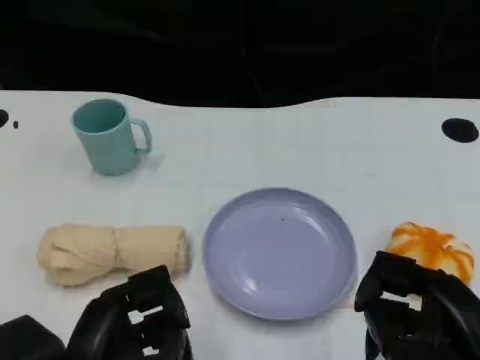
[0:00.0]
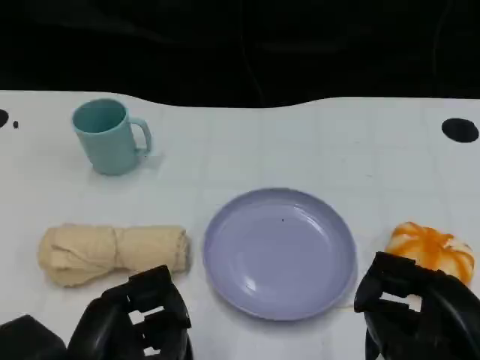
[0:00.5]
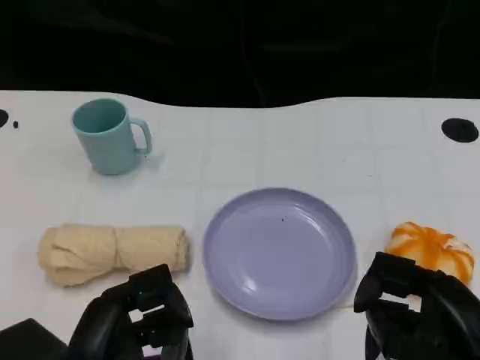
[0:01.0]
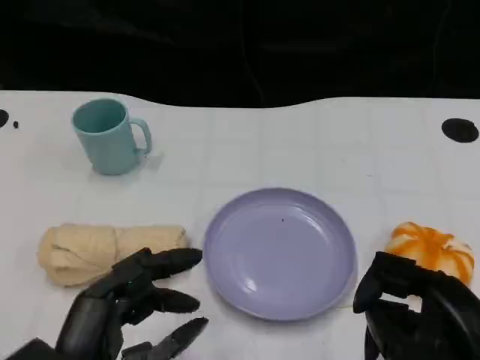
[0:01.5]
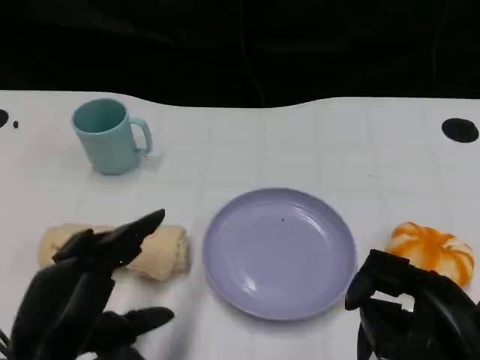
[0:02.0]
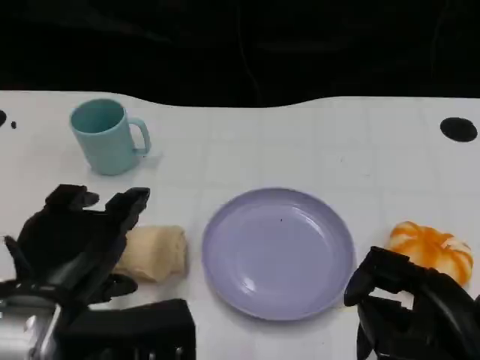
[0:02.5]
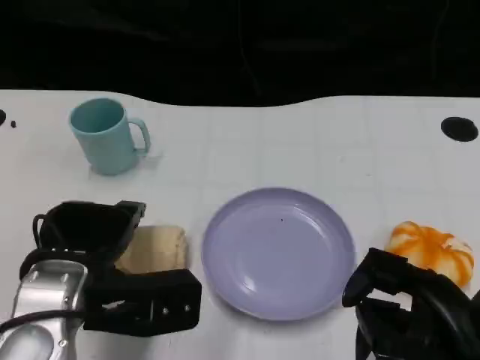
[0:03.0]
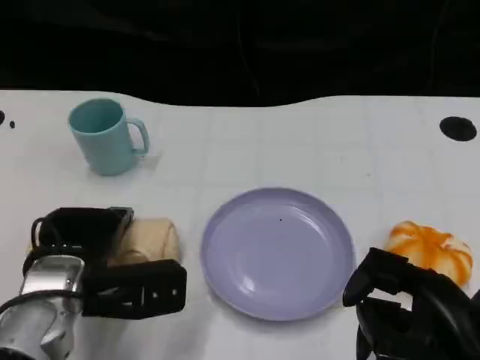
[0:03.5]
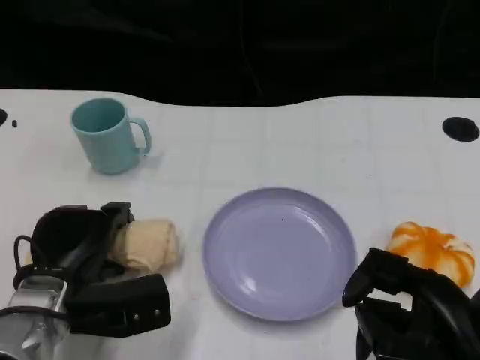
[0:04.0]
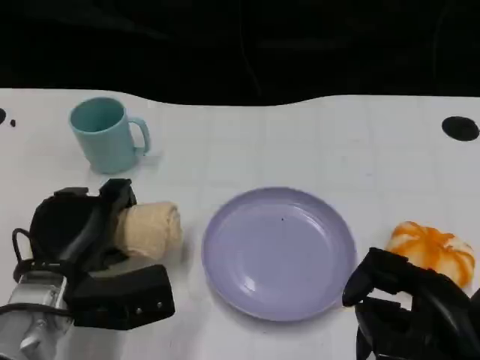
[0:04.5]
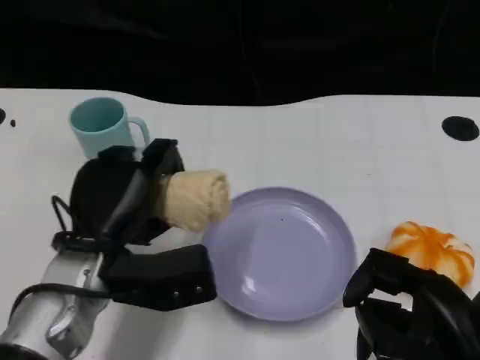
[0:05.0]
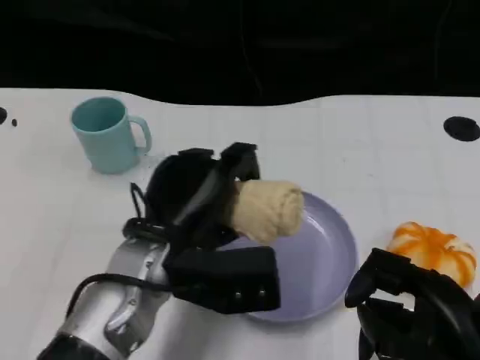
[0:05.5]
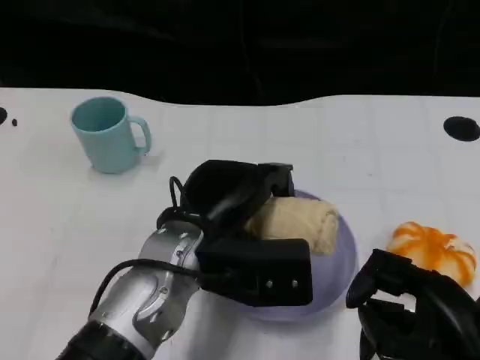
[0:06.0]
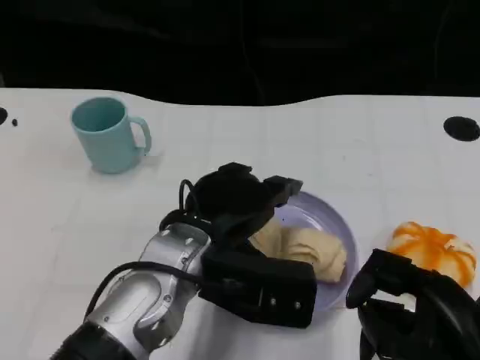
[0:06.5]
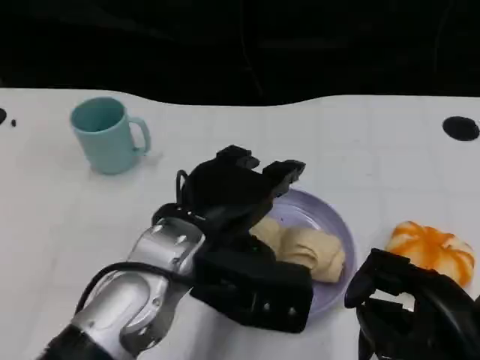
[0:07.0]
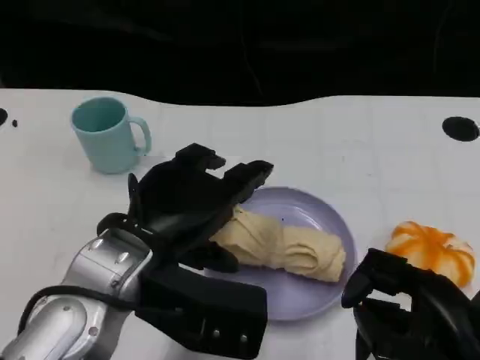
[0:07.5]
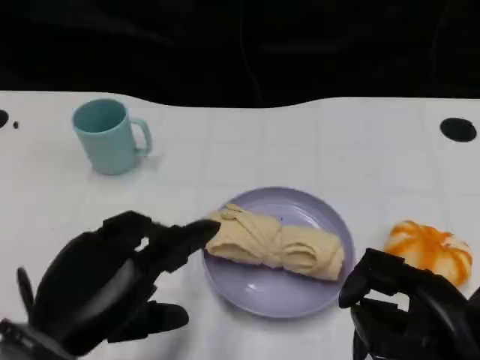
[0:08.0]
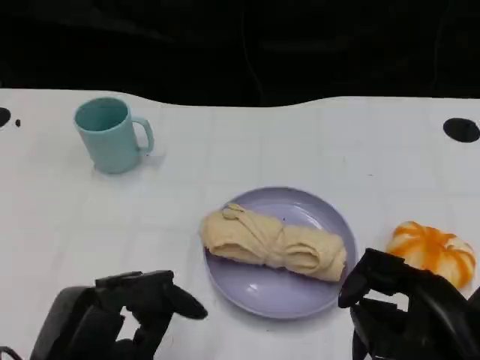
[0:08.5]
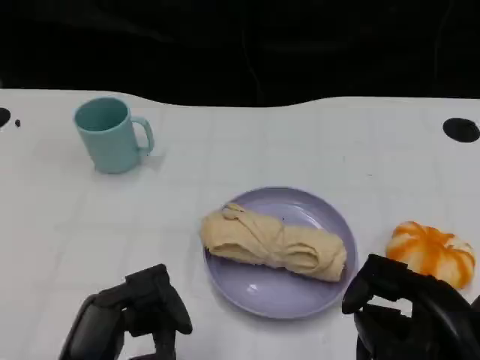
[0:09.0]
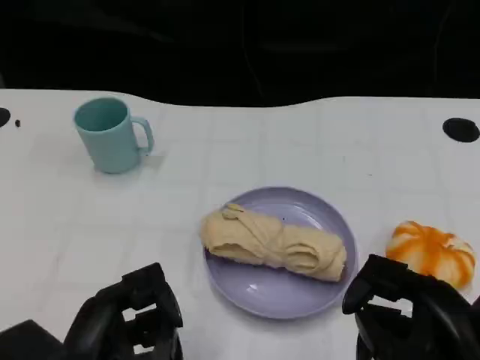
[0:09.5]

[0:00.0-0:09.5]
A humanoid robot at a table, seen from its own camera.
Task of the whole recording: Grasp the towel on the left side of the plate with the left hand and place it into the plate.
0:02.0 to 0:04.0: The left hand travels forward and downward by about 15 cm.
0:04.0 to 0:05.5: The left hand heads to the right and upward, covering roughly 15 cm.
0:05.5 to 0:07.5: The left hand ends up approximately 5 cm from where it was.
0:07.5 to 0:09.5: The left hand goes roughly 15 cm backward, downward and to the left.

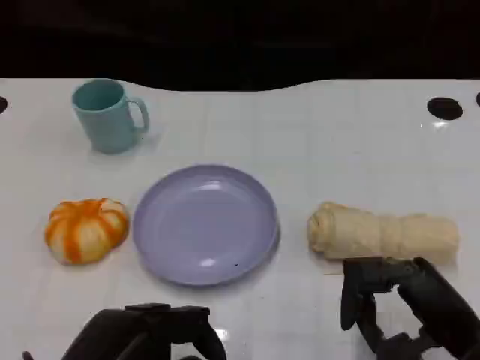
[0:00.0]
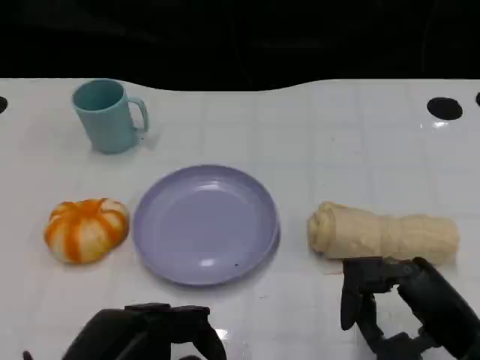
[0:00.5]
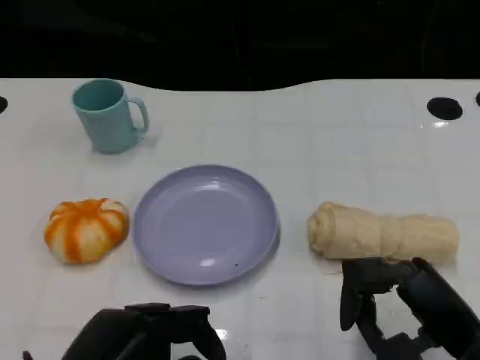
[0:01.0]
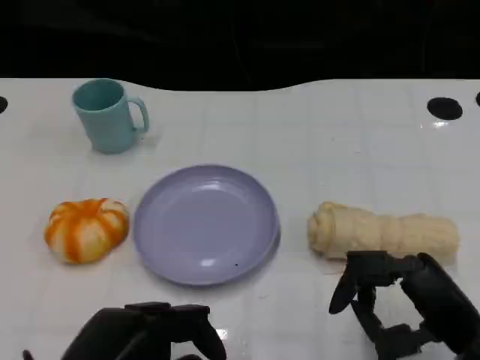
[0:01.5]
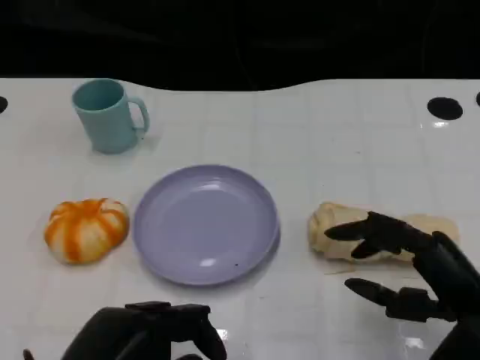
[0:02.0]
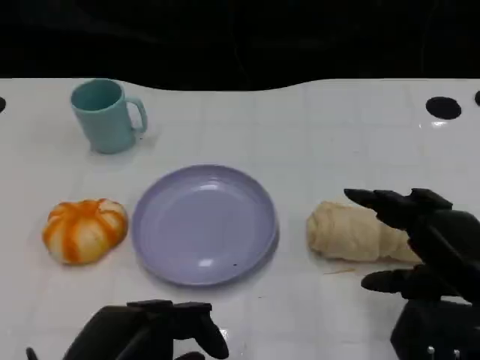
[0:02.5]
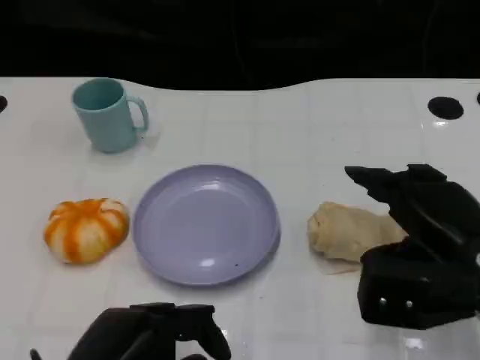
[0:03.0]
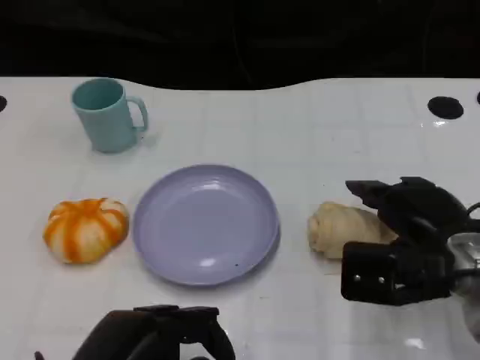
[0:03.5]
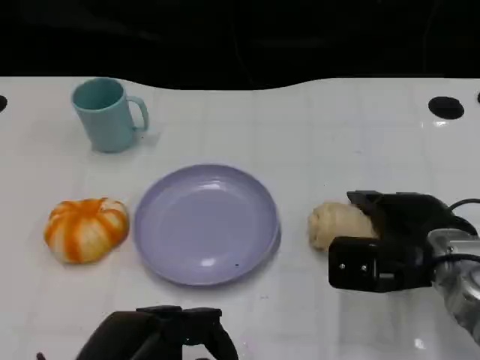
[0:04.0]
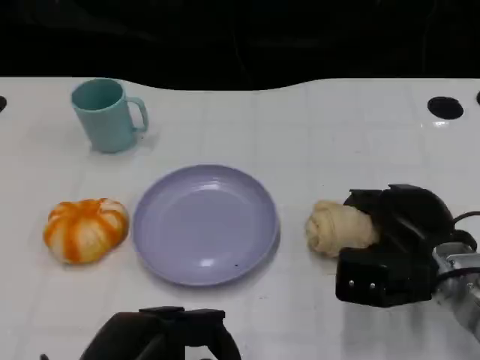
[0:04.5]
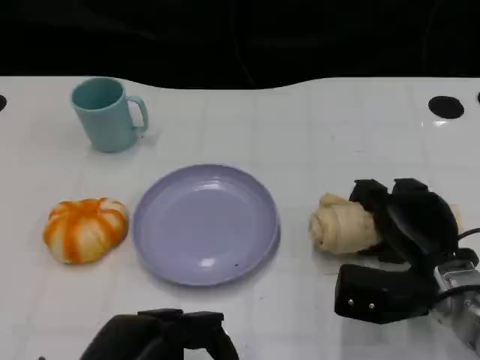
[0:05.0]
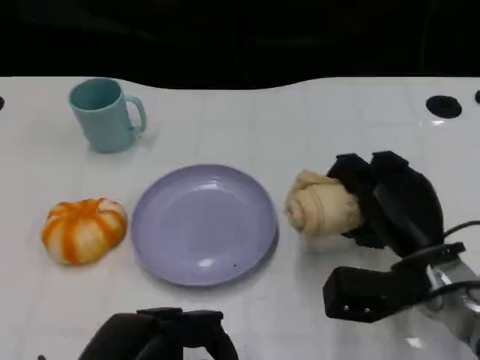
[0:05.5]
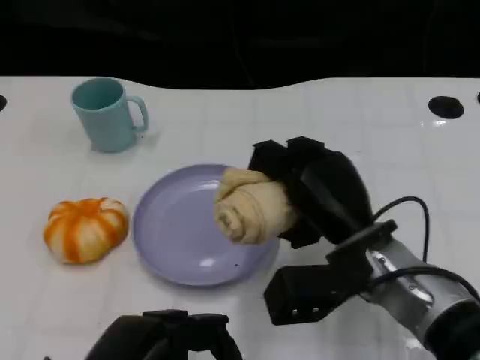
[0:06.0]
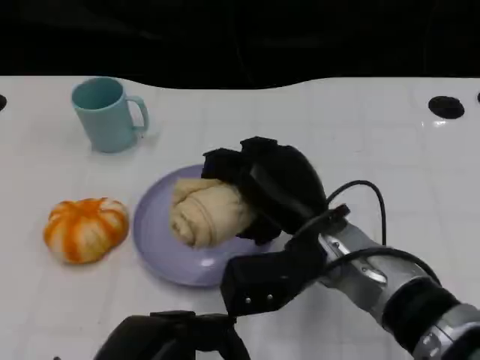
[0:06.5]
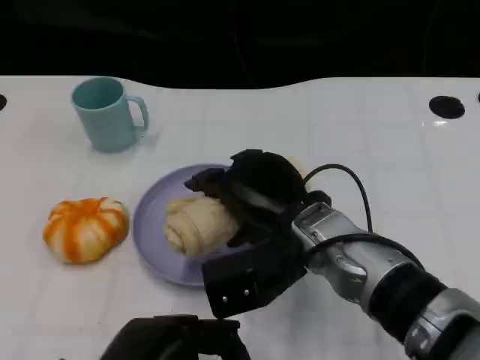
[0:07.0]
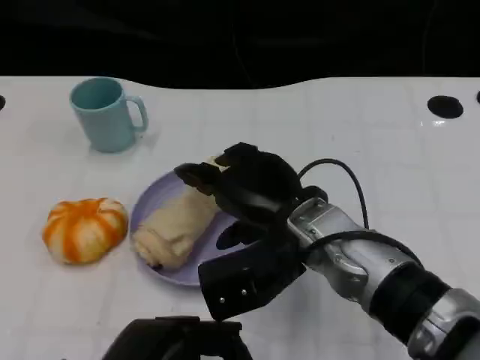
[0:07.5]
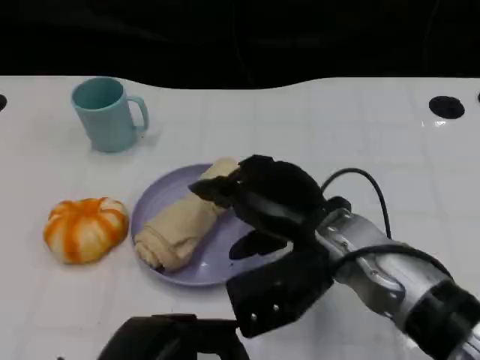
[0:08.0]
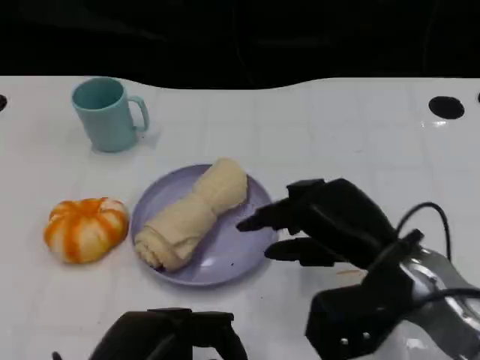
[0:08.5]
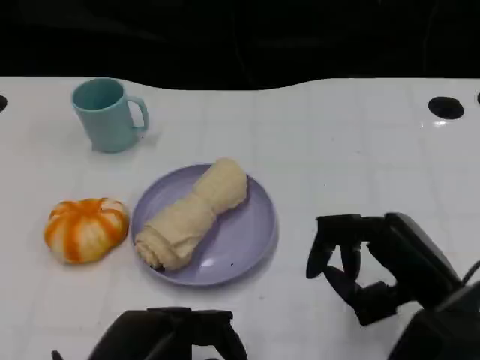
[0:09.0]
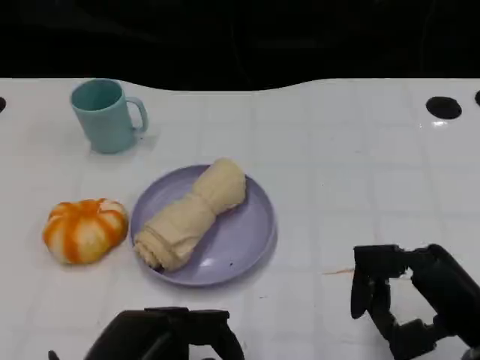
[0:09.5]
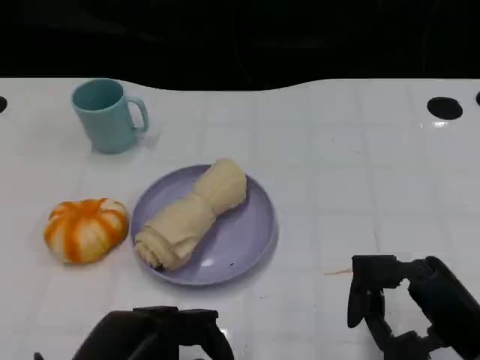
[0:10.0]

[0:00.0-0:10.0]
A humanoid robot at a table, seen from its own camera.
Task of the whole recording: Grasp the towel on the left side of the plate with the left hand and place it into the plate.
0:00.0 to 0:02.0: The hands move only a little.
0:02.0 to 0:04.0: The right hand heads forward, covering approximately 10 cm.
0:04.0 to 0:06.0: The right hand is displaced to the left by some 10 cm.
0:08.0 to 0:10.0: The right hand is displaced to the right and backward by some 15 cm.

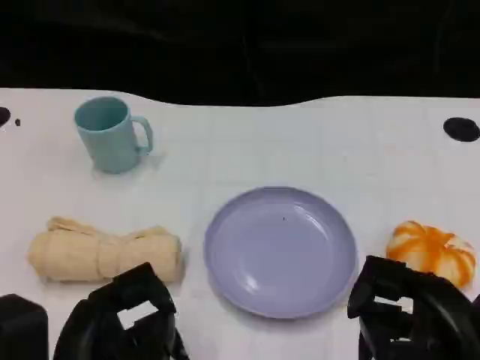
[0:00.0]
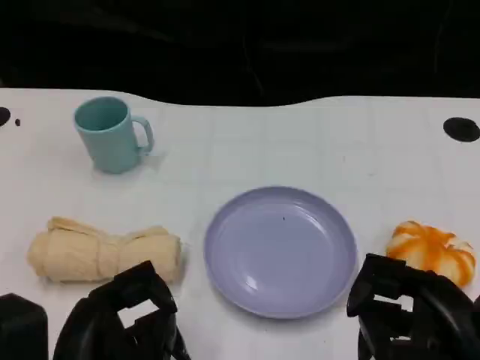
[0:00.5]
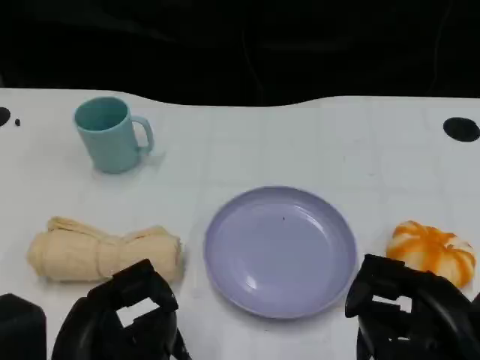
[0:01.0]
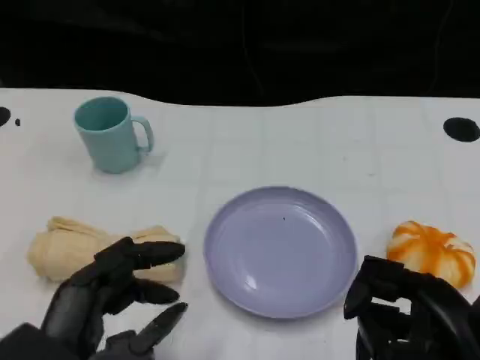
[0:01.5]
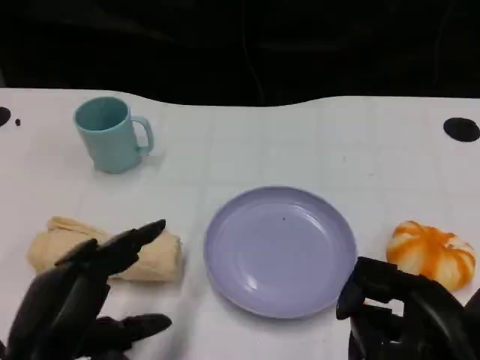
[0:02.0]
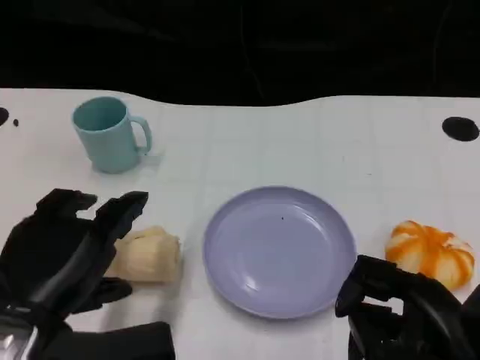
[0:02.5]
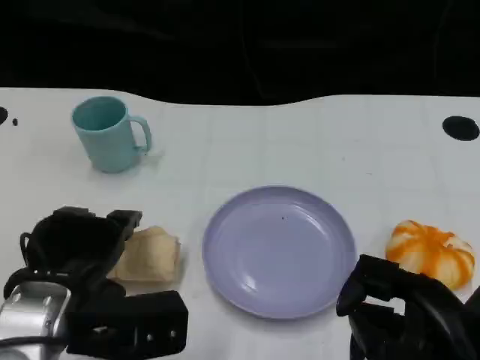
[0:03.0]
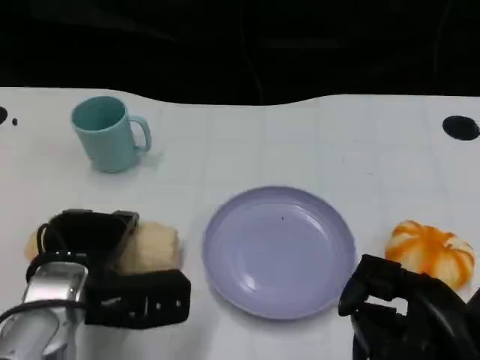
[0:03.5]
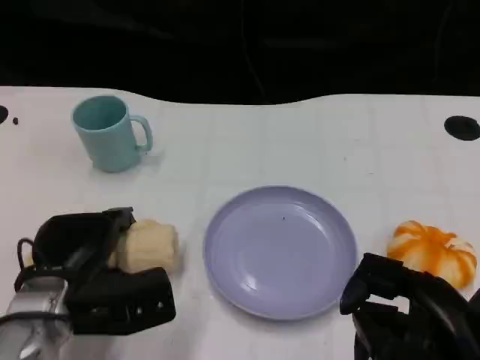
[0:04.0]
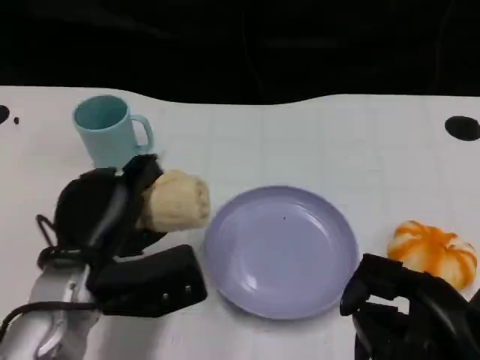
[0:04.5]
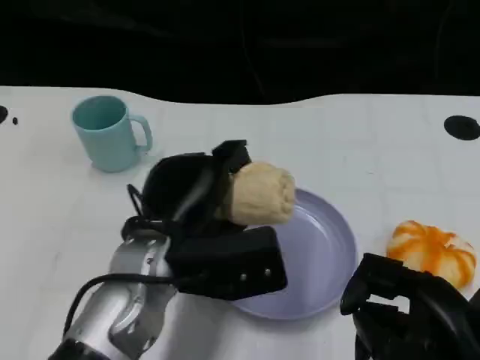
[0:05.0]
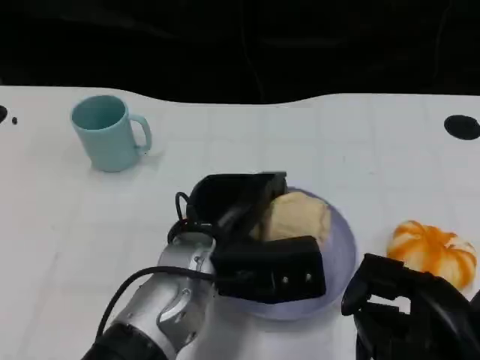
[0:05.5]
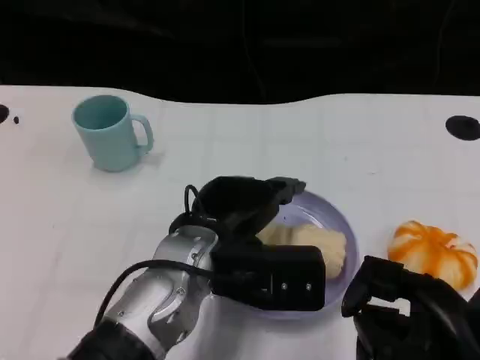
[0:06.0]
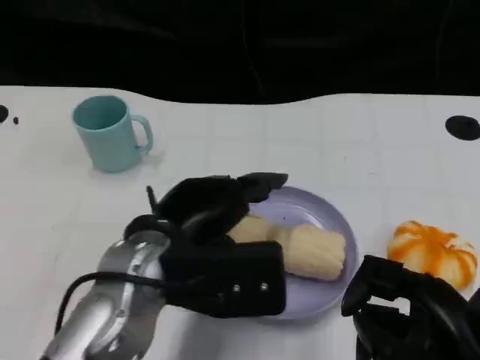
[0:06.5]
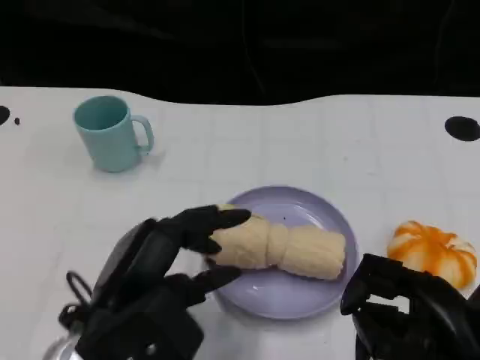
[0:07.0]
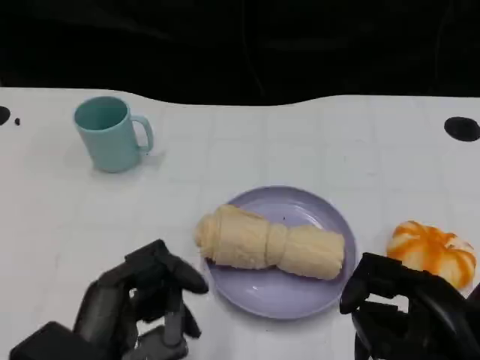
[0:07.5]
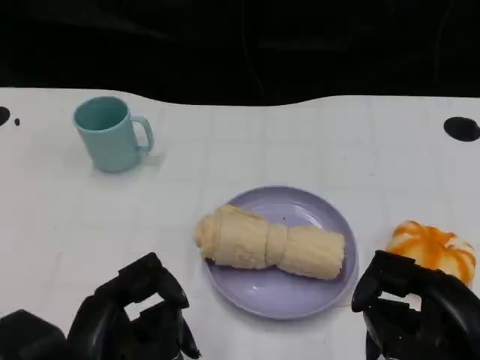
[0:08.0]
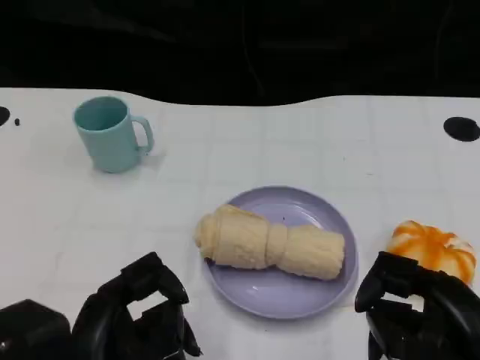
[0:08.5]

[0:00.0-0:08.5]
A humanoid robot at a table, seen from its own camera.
Task of the whole recording: Grasp the towel on the left side of the plate with the left hand and place it into the plate.
0:02.0 to 0:04.0: The left hand moves forward and downward, approximately 10 cm.
0:04.0 to 0:06.5: The left hand is displaced upward and to the right by some 15 cm.
0:06.5 to 0:08.5: The left hand goes some 10 cm backward and to the left.
